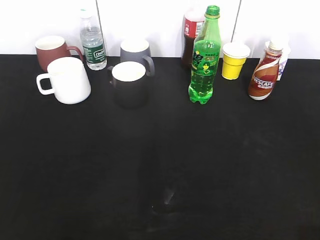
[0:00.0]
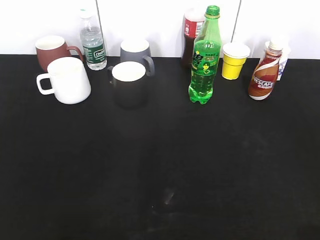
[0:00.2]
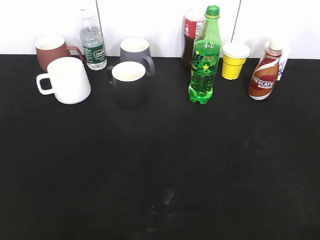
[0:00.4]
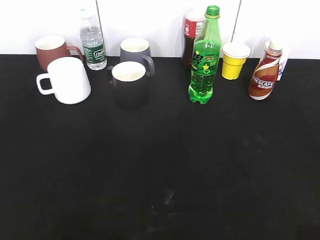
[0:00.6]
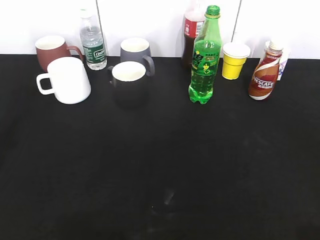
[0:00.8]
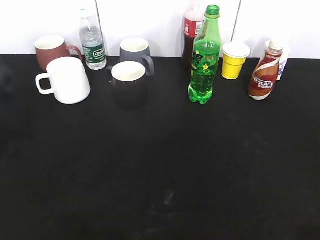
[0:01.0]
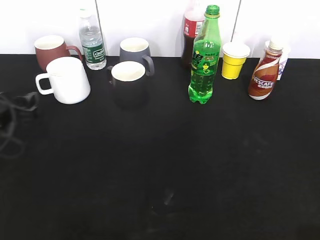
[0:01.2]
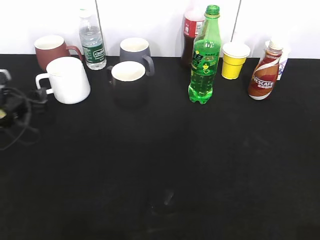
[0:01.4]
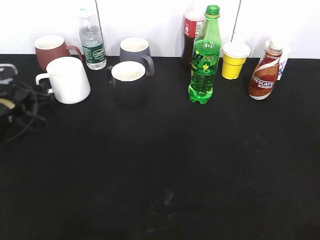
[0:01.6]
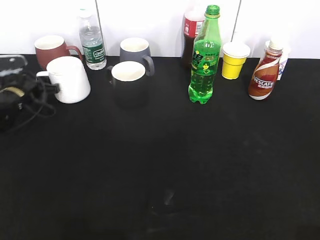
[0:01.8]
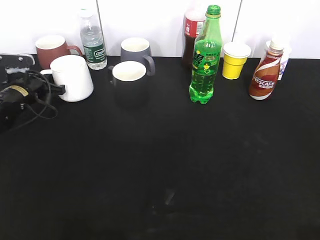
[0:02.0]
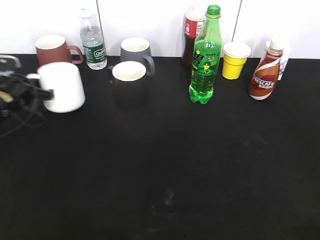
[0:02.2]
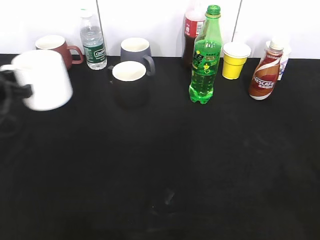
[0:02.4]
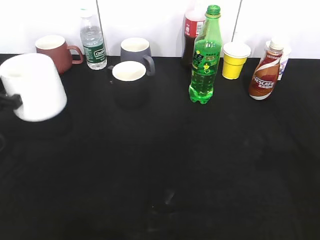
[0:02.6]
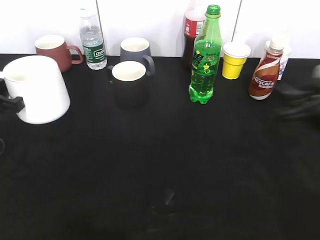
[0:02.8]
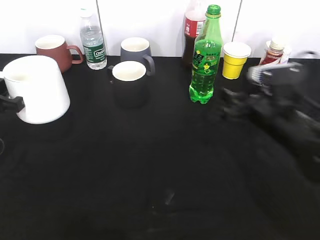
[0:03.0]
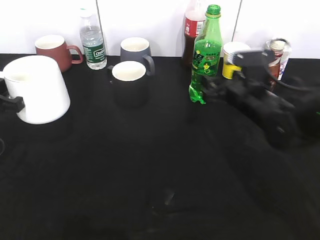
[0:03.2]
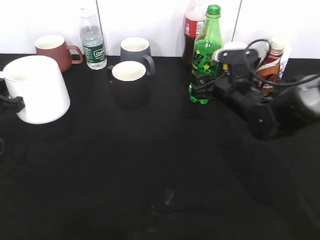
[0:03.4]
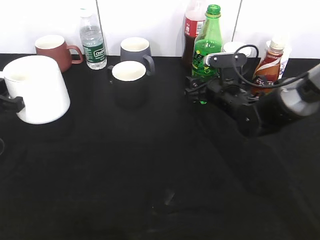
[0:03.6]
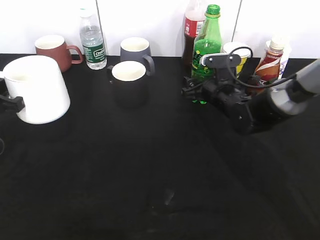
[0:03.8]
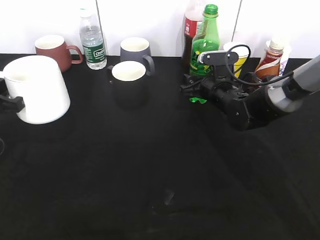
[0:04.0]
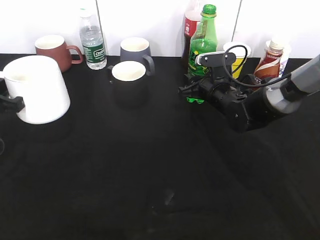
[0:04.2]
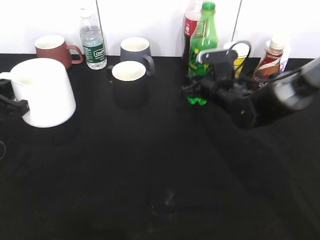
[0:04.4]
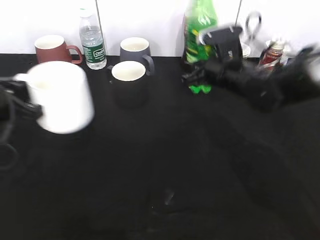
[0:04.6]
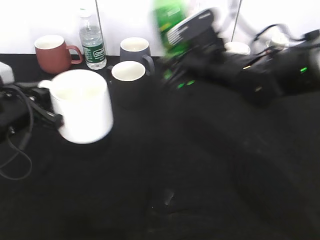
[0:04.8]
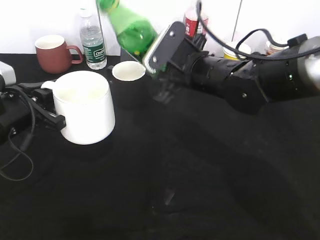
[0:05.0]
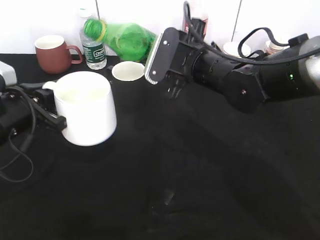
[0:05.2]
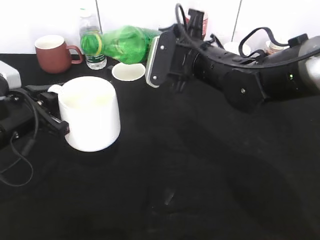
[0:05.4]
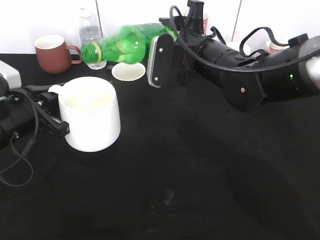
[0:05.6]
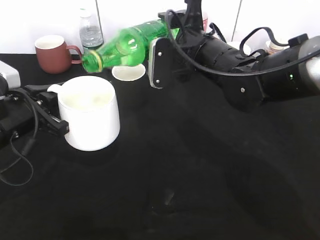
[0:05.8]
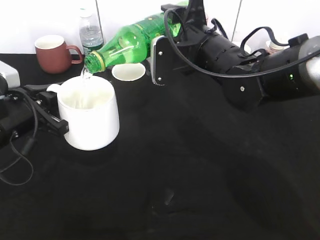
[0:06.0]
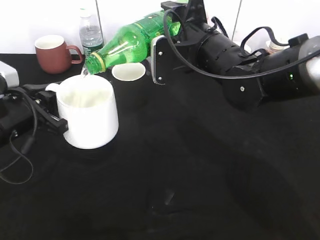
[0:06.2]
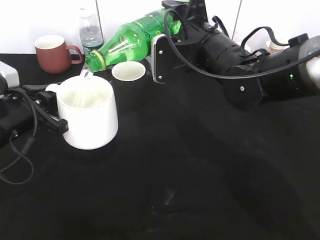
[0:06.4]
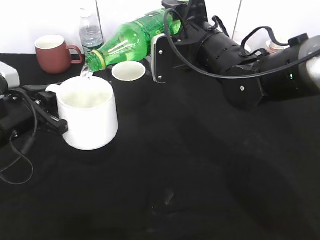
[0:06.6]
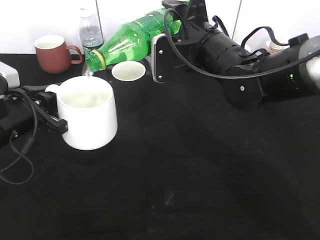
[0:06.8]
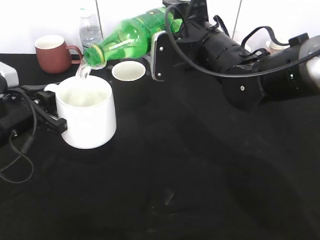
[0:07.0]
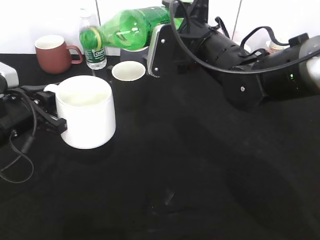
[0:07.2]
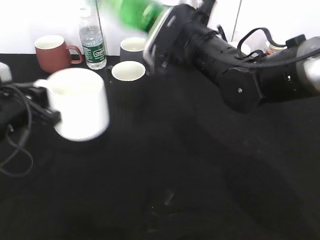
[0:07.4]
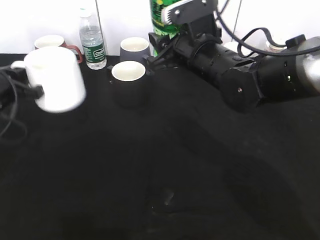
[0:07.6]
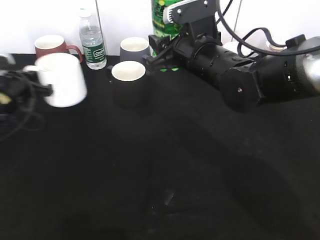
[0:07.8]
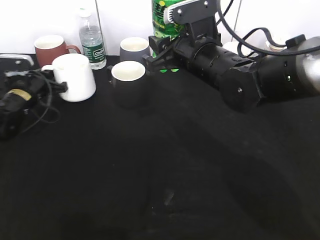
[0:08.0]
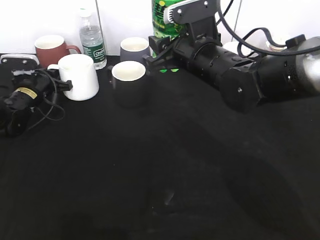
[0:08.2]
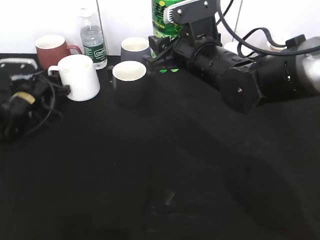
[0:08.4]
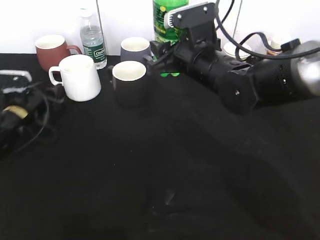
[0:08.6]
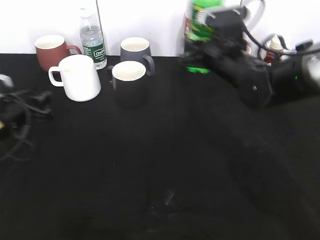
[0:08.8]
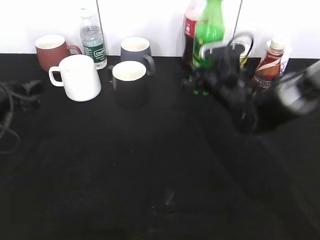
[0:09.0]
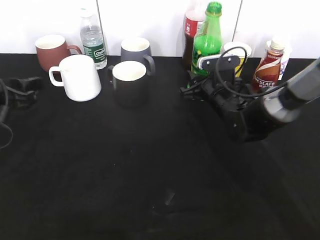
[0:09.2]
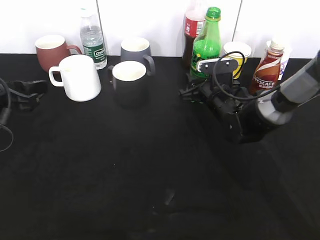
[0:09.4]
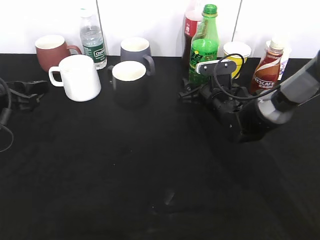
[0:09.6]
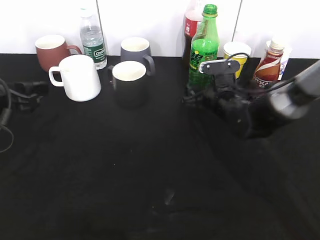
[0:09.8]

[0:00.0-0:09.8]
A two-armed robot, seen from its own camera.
Step, 0:00.0 to 0:01.8: Grasp the white cup with left gripper.
Step, 0:02.2 to 0:02.6: Lift the white cup with left gripper.
Step, 0:02.8 to 0:04.0: Grasp the bottle with sprite with right gripper.
Step, 0:04.2 to 0:07.2: Pour the sprite from bottle to cup with right gripper.
Step, 0:07.4 to 0:08.4: Place the white cup on the table with left gripper.
Step, 0:08.8 to 0:09.8: Place the sprite bottle on the table with right gripper.
0:00.0 to 0:01.4: The left gripper shifts some 40 cm forward and downward.
0:01.4 to 0:02.8: The left gripper travels backward and upward by roughly 10 cm, and closes up, while the right gripper shifts some 30 cm forward and downward.
0:02.8 to 0:04.2: The right gripper is displaced forward, to the left and downward by about 25 cm, and opens, then closes again.
0:04.2 to 0:05.6: The right gripper travels upward, backward and to the left by roughly 15 cm. Meanwhile the left gripper heads to the right, covering approximately 5 cm.
0:05.6 to 0:07.0: The grippers stay close to where they were, moving slightly.
0:07.0 to 0:08.4: The left gripper travels forward and downward by some 20 cm, and opens up.
0:08.4 to 0:09.8: The right gripper goes approximately 15 cm downward and to the right, and opens up. The left gripper goes some 20 cm backward and upward.

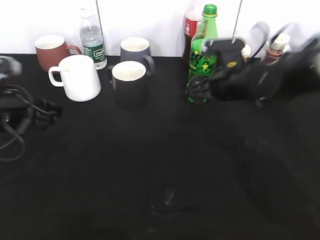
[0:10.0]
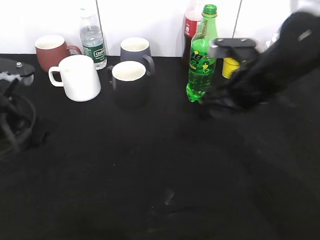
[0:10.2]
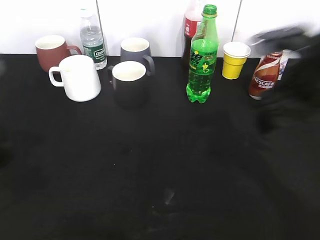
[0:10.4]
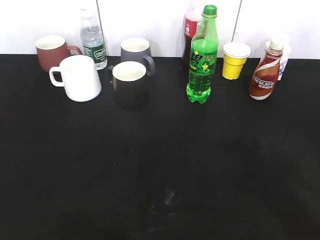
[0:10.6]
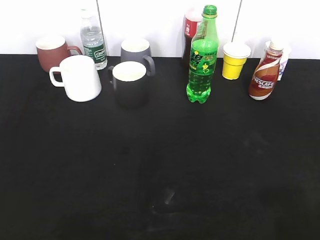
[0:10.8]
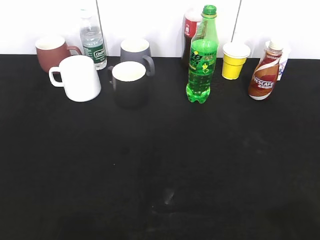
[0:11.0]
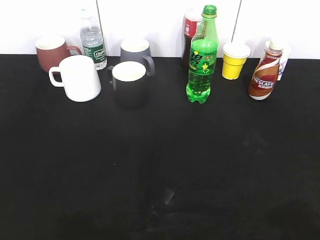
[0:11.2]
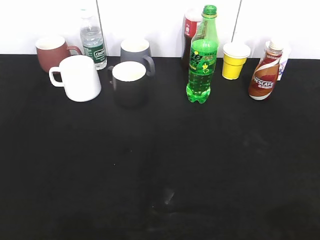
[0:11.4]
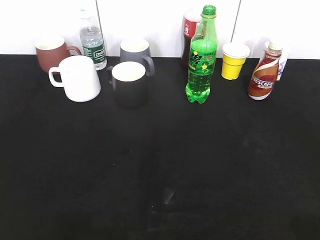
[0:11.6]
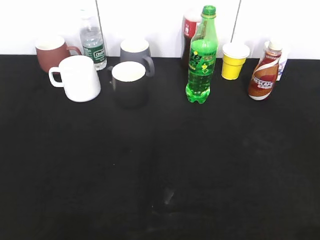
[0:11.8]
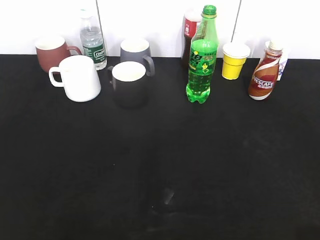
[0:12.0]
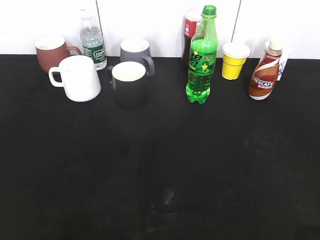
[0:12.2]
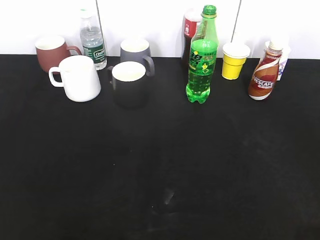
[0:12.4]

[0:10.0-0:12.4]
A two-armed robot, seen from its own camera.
0:10.0 to 0:11.2: The left gripper moves backward and upward, about 30 cm; the right gripper travels backward, to the right and upward by some 40 cm.

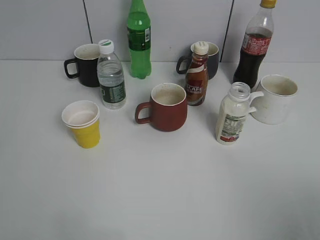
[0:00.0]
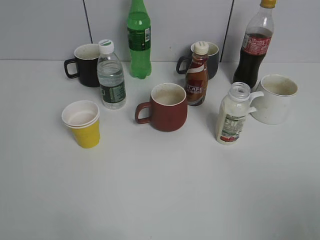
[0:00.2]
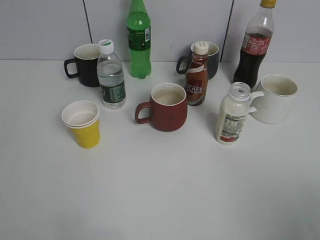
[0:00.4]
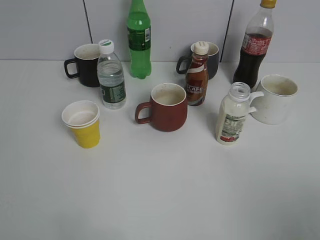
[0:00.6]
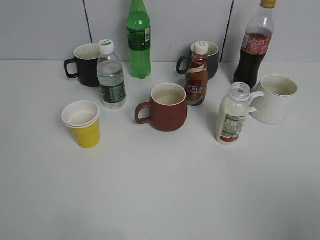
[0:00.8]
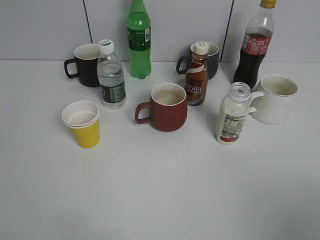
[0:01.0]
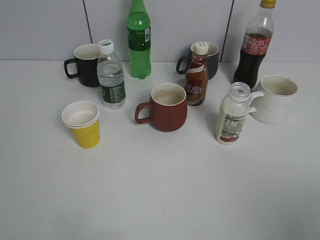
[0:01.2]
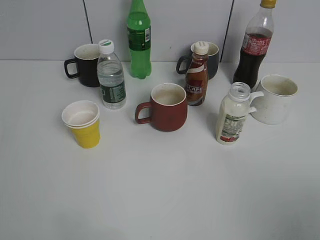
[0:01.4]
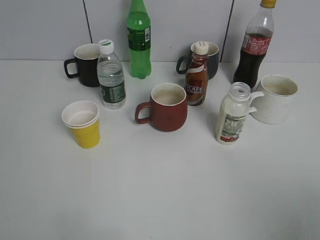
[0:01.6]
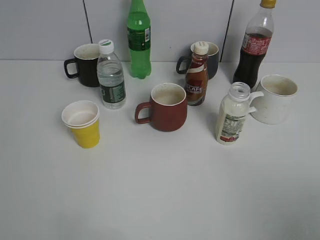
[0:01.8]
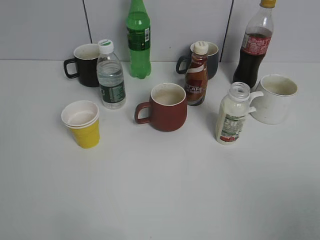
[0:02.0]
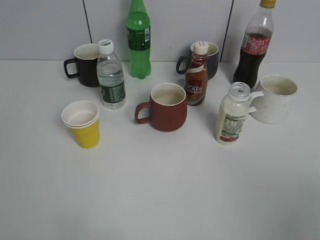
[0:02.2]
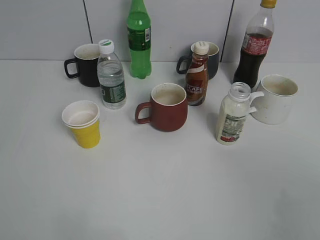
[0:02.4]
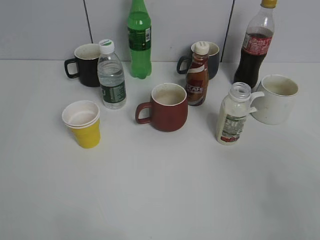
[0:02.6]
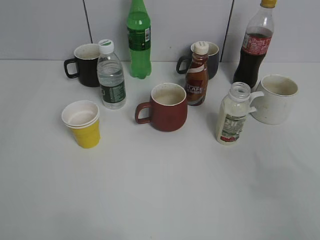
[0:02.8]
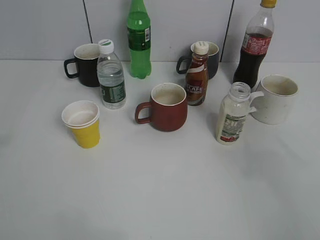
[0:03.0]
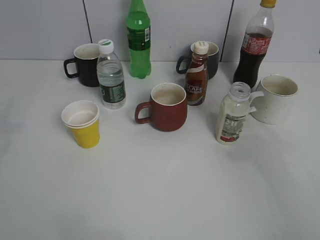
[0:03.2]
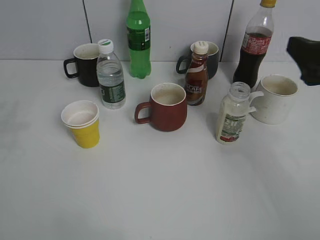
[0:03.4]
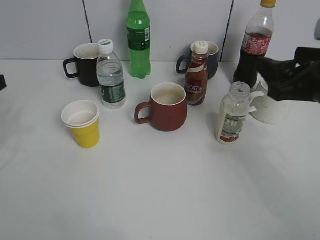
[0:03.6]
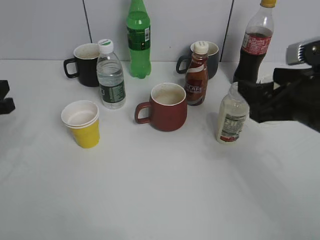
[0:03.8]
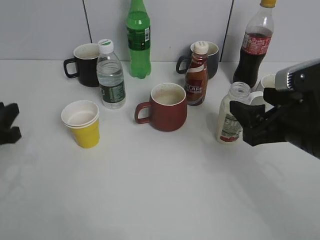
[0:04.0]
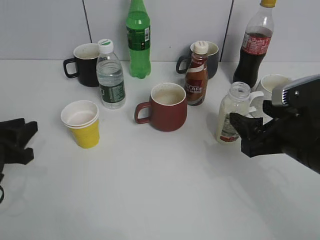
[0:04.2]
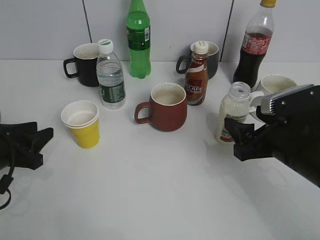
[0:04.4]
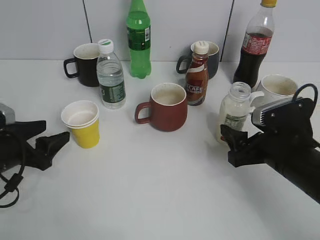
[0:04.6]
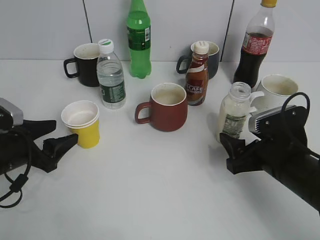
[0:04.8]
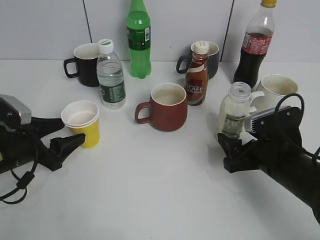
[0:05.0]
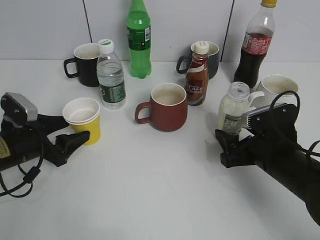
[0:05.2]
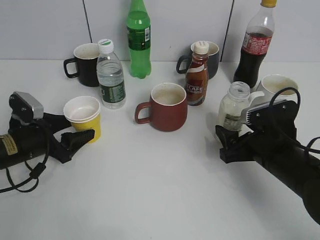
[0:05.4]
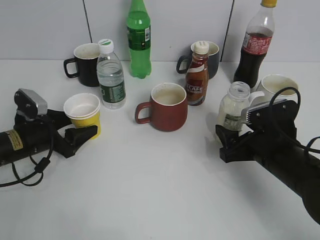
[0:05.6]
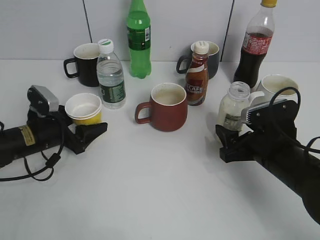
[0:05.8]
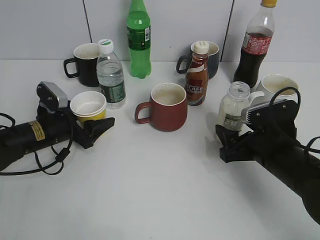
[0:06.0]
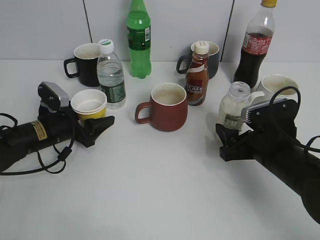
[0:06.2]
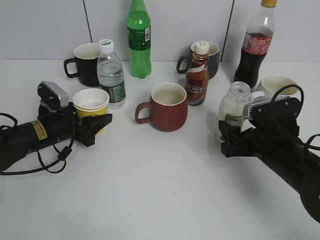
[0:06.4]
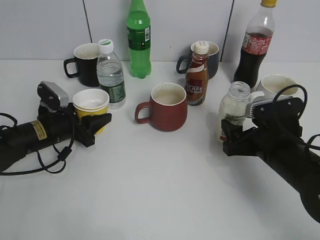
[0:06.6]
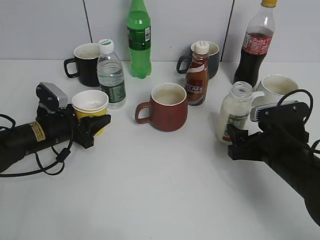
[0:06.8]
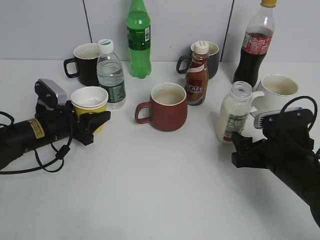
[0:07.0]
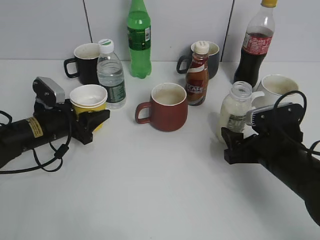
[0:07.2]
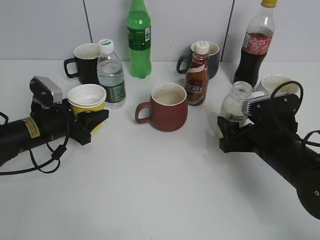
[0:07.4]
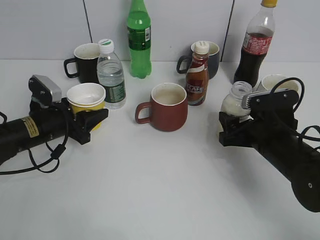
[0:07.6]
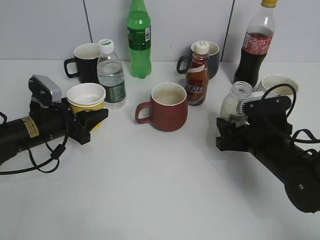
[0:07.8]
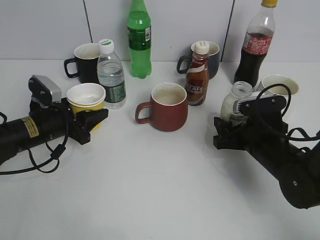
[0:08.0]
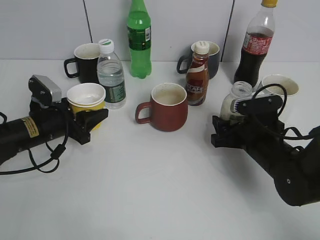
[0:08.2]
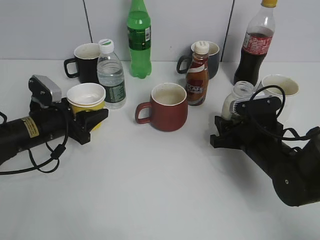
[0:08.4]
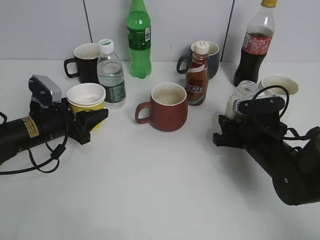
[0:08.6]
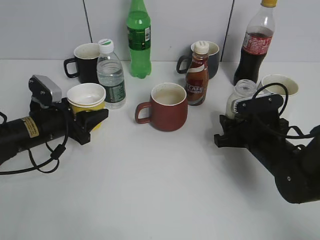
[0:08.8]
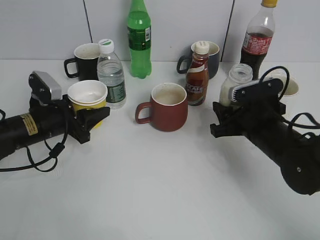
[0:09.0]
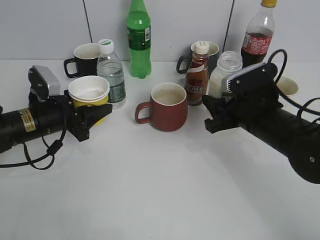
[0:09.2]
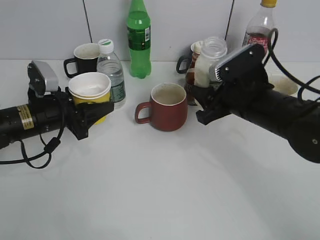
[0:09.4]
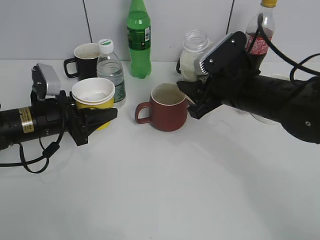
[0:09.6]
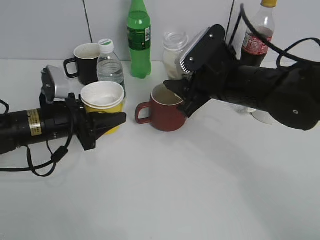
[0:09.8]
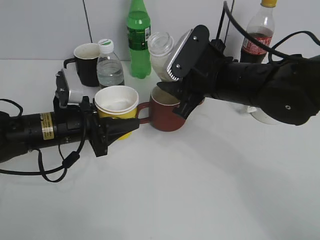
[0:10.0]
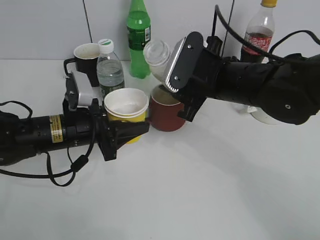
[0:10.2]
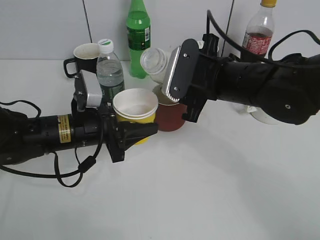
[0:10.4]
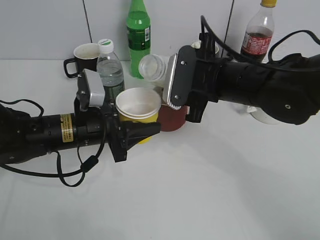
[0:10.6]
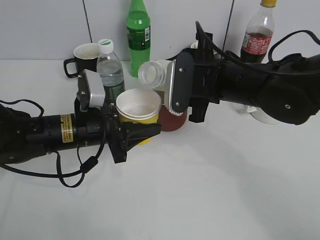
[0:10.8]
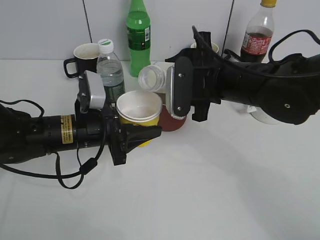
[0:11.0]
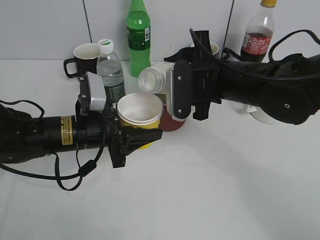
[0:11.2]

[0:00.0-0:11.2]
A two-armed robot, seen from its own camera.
Step, 0:03.4 to 0:06.4: Grasp the yellow paper cup with left gripper.
Step, 0:06.8 to 0:07.4: Lift the yellow paper cup with left gripper.
Step, 0:07.6 to 0:08.6: Grasp the bottle with yuexian Milk with right gripper.
0:01.6 to 0:03.2: The right gripper heads forward, covering approximately 15 cm.
0:03.2 to 0:04.8: The grippers both shift downward by some 20 cm. The left gripper opens.
0:04.8 to 0:06.4: The left gripper heads forward, covering about 10 cm, and closes up.
0:06.4 to 0:08.0: The grippers make only small movements.
0:08.0 to 0:09.6: The right gripper travels upward and to the left by approximately 10 cm, and closes up.
0:09.6 to 0:11.2: The left gripper is displaced to the right by approximately 10 cm.
